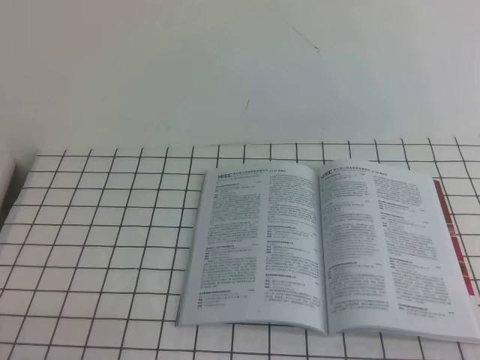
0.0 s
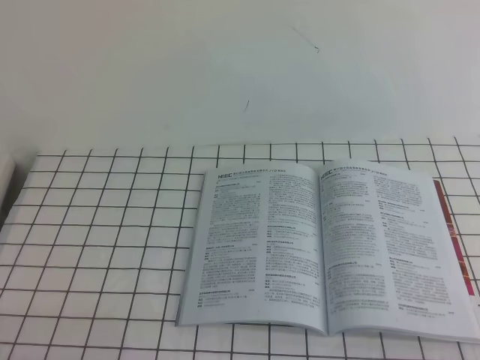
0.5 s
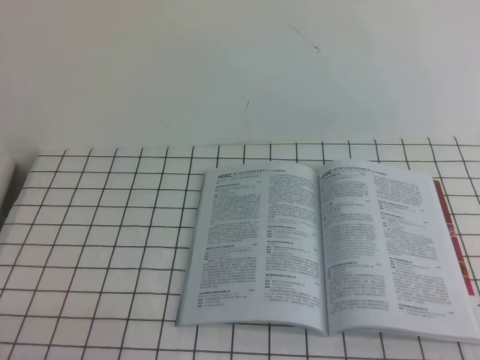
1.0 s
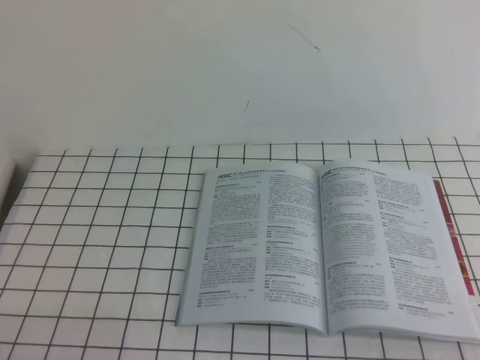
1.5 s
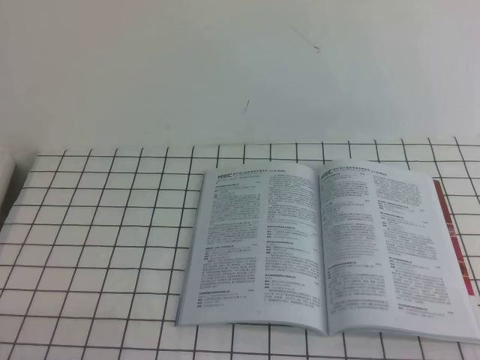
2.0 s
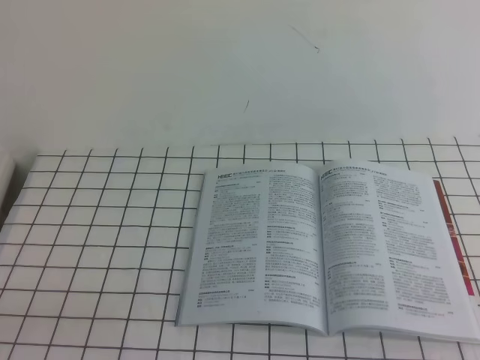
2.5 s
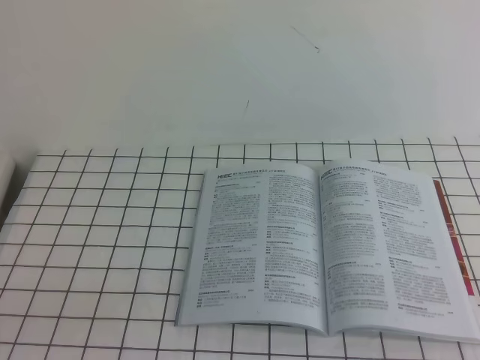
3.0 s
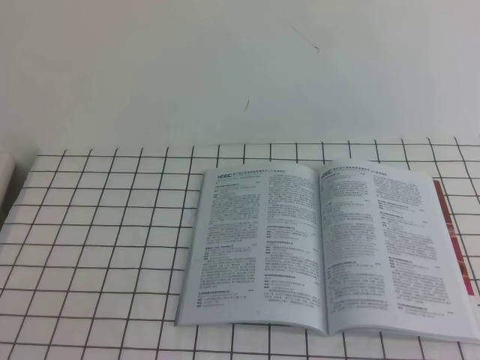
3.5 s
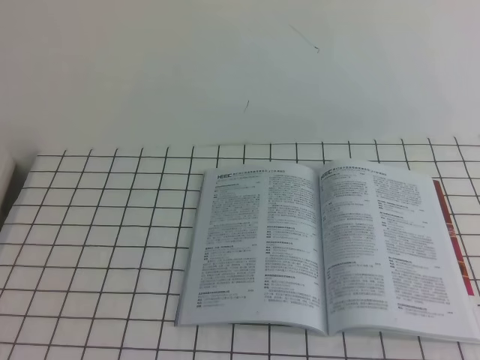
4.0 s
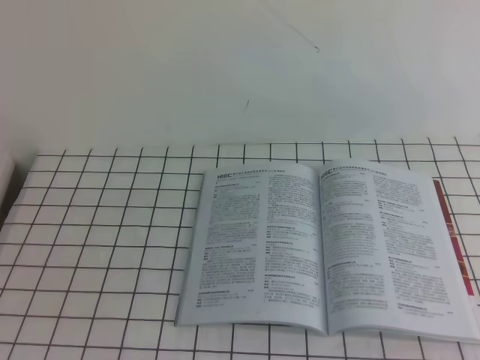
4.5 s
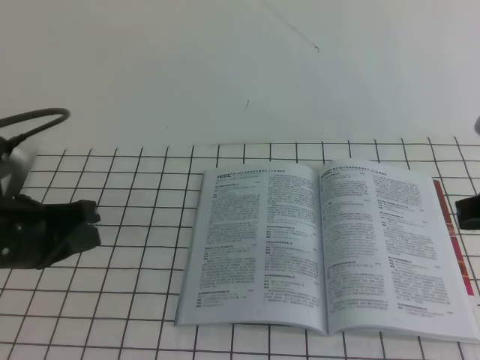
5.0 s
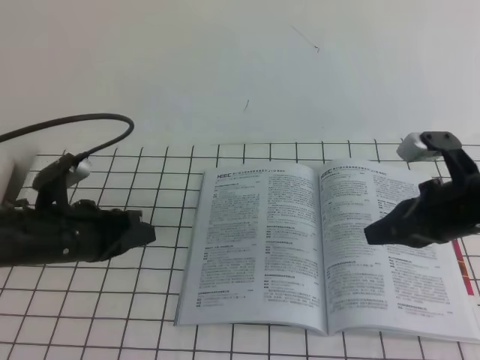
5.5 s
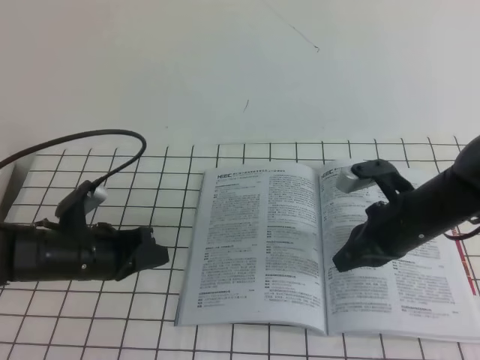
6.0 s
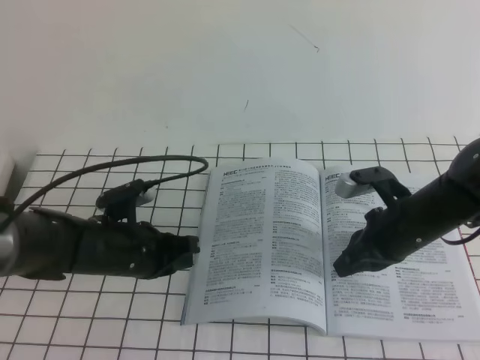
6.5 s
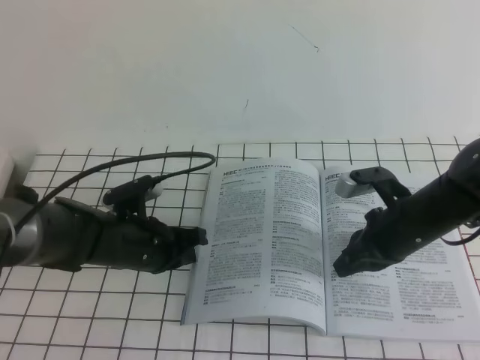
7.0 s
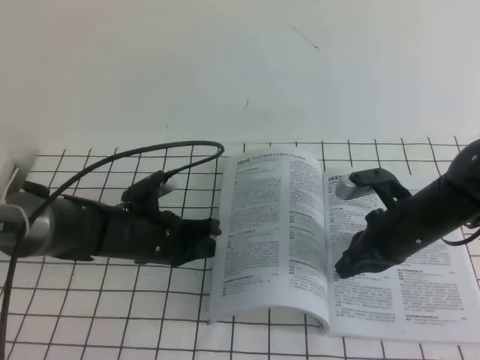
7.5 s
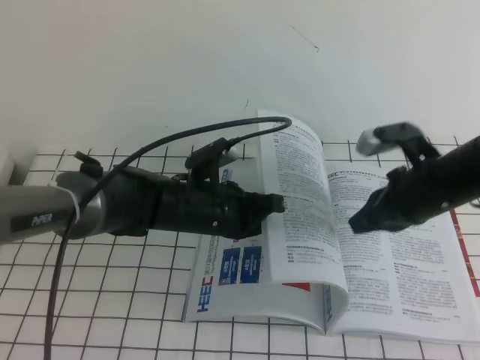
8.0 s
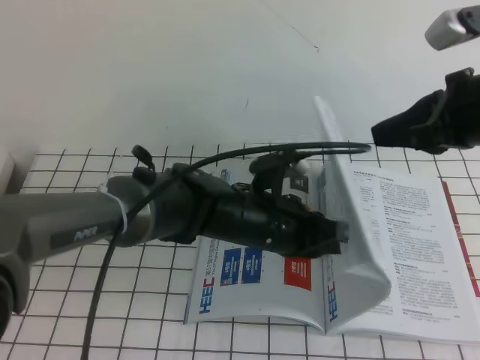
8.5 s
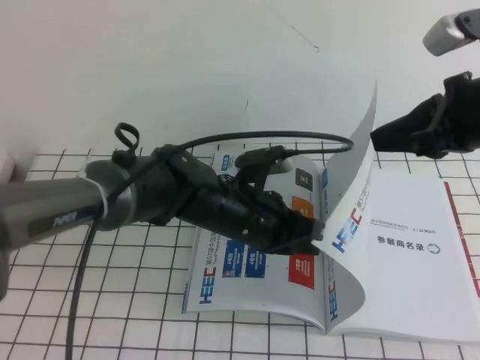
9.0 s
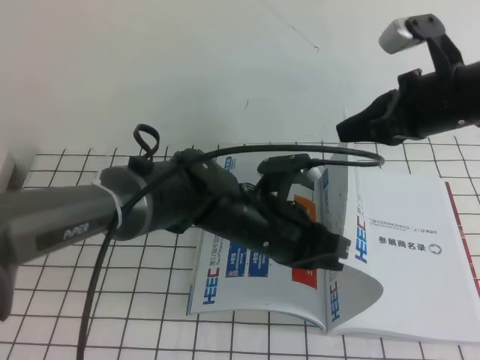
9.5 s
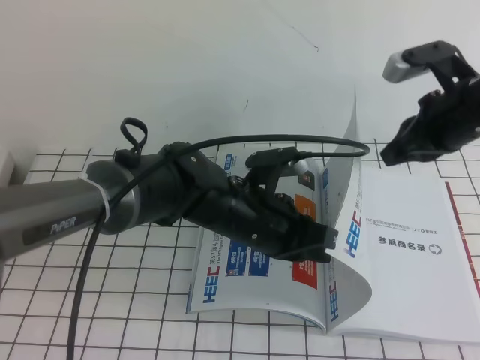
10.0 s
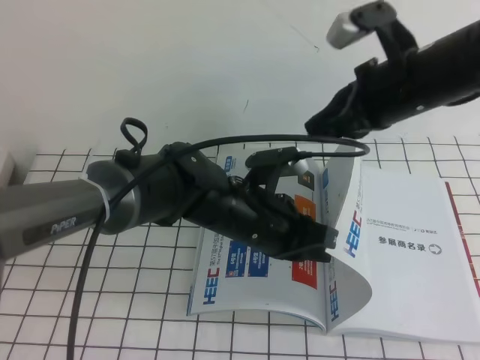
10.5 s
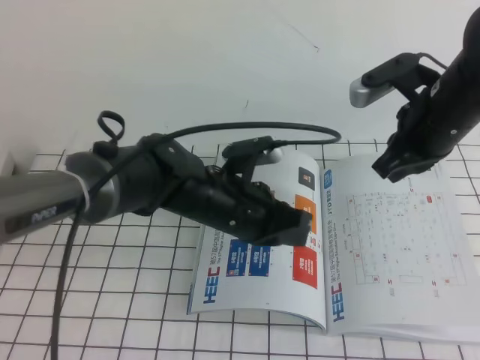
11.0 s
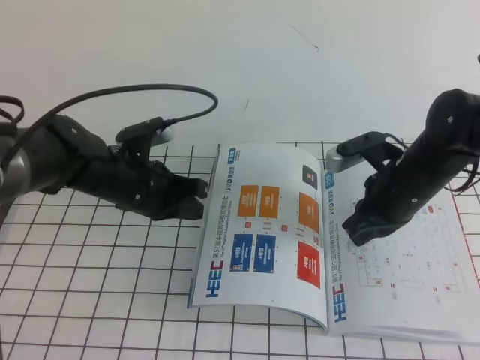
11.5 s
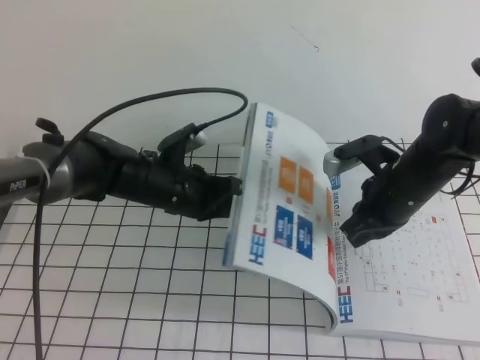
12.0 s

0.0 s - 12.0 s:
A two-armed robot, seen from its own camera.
Task of the whole recording: on the white tablecloth, hold the book with one hand and close it with the other.
0.0 s - 2.0 s: Both grippers stay about where they are.
4.0 s - 6.0 s: The right gripper moves downward, forward and to the left, approximately 40 cm, while the left gripper heads forward and downward, covering roughly 40 cm.
6.0 s - 8.0 s: The left gripper shifts some 15 cm to the right.
8.0 s - 10.0 s: The right gripper heads upward, covering approximately 10 cm, while the left gripper is displaced to the right by about 5 cm.
10.0 s - 12.0 s: The left gripper is displaced to the left and forward by about 15 cm. Meanwhile the right gripper moves downward, some 10 cm.

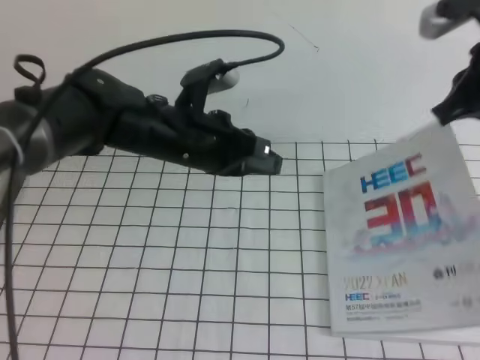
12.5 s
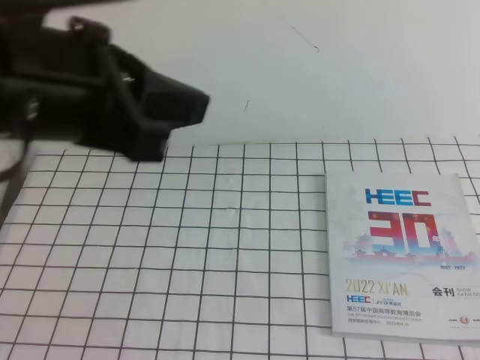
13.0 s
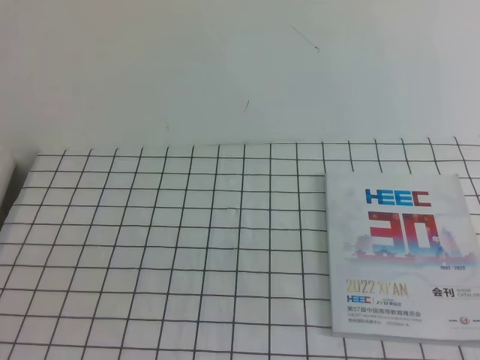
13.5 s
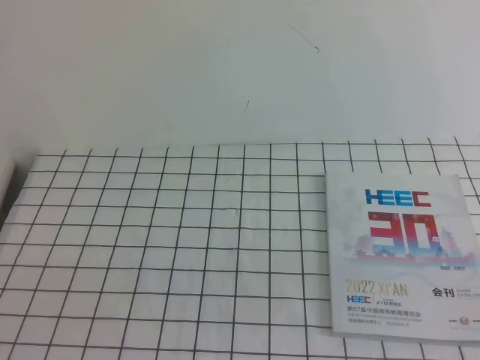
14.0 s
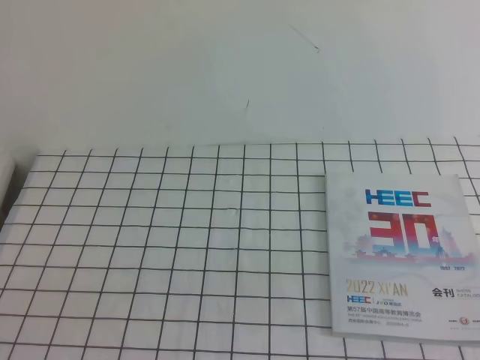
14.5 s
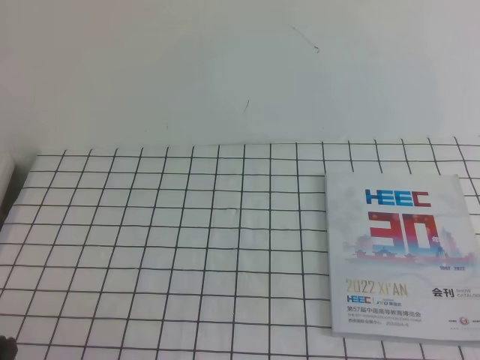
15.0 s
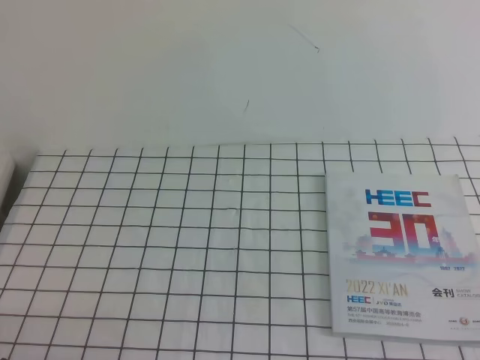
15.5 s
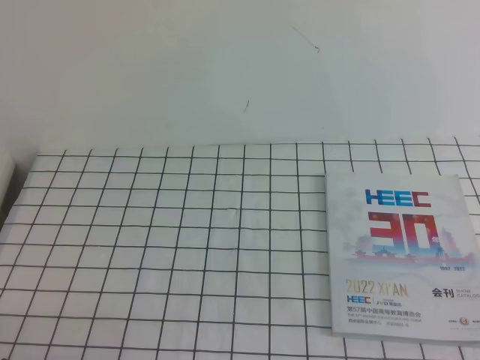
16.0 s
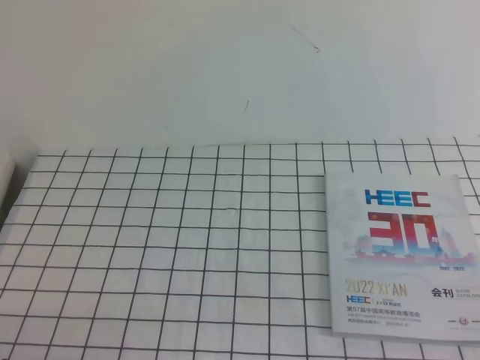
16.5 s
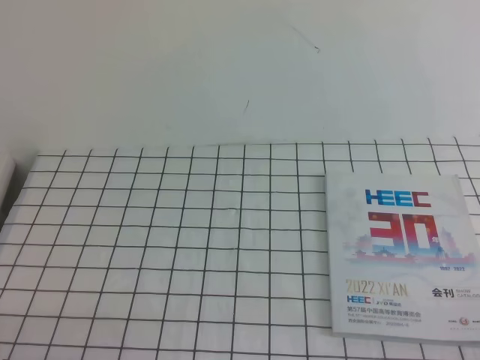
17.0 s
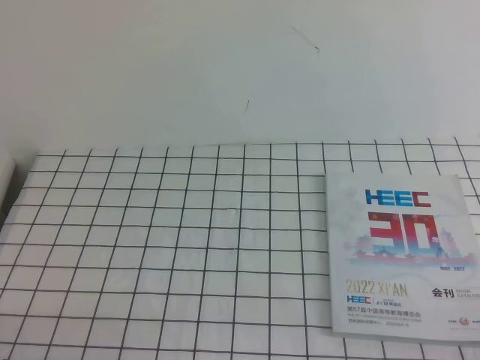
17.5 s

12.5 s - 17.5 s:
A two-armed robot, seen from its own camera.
Task of the whole recording: on the white tablecloth, hold the book with one hand and close it with the other.
Step, 12.5 s - 17.5 s: Close the open book.
12.5 s - 15.0 s: The left gripper shifts approximately 35 cm backward and to the left, while the right gripper travels backward by approximately 30 cm.

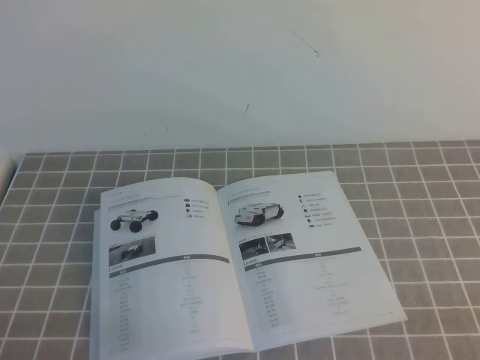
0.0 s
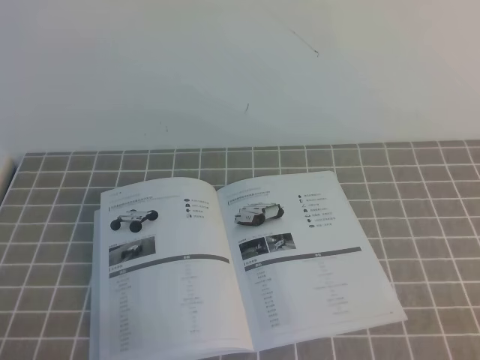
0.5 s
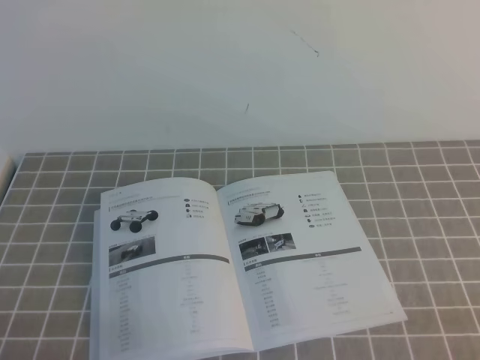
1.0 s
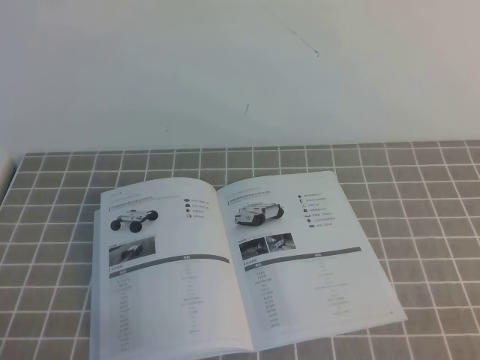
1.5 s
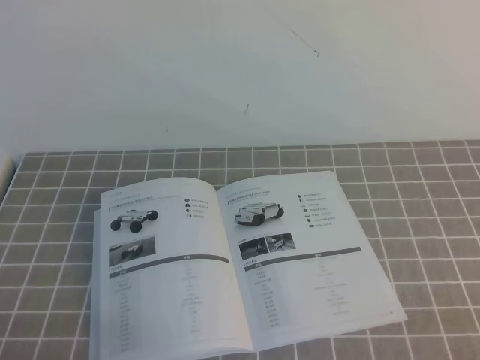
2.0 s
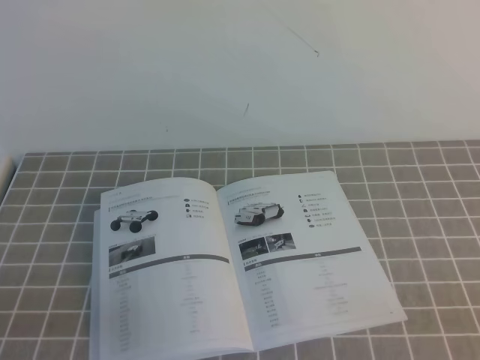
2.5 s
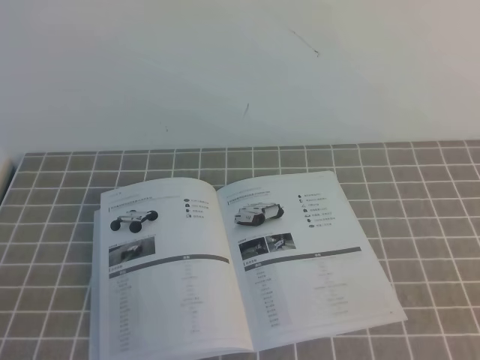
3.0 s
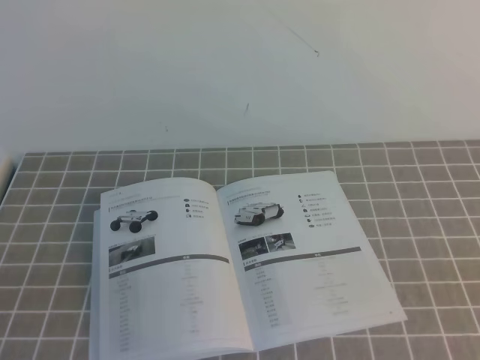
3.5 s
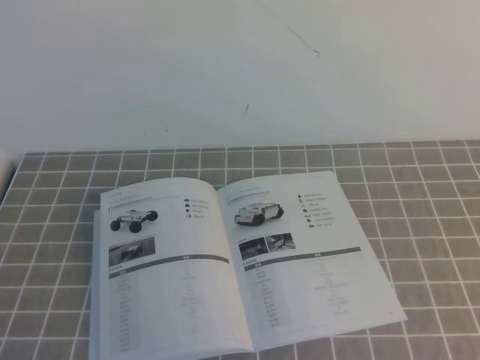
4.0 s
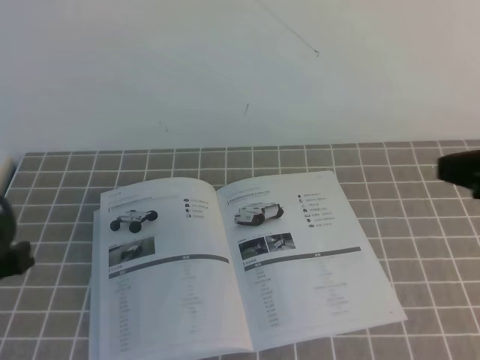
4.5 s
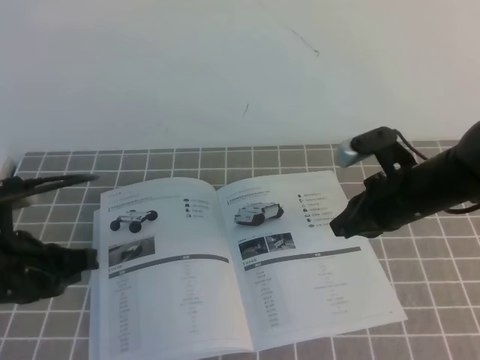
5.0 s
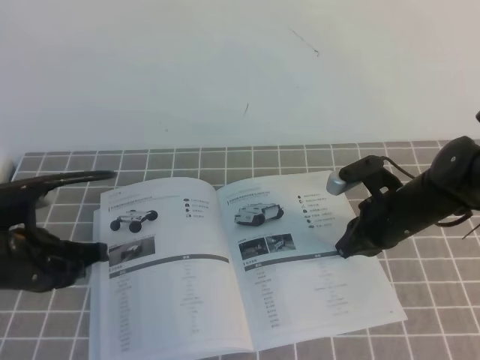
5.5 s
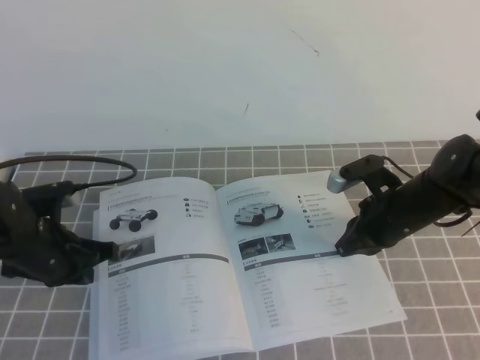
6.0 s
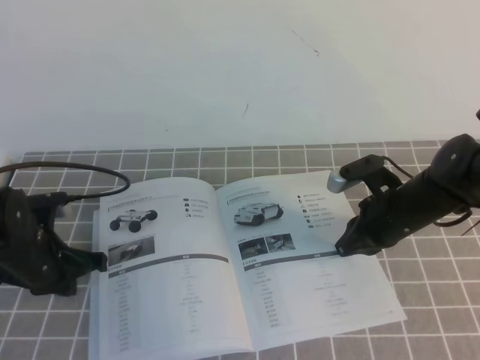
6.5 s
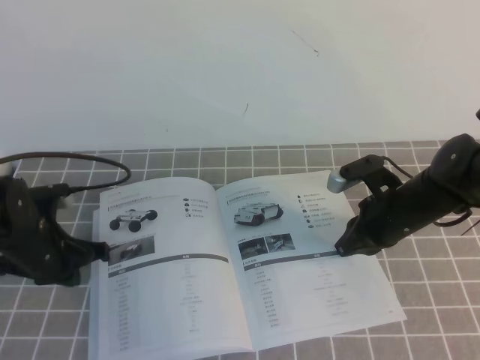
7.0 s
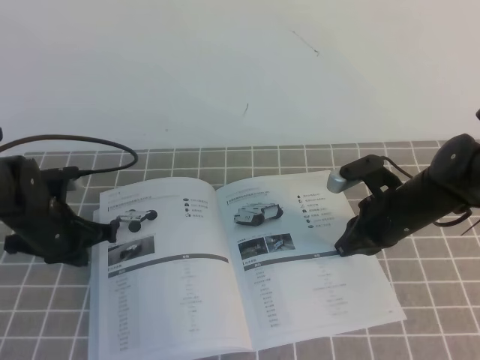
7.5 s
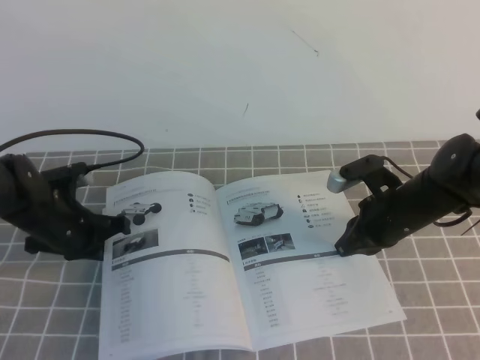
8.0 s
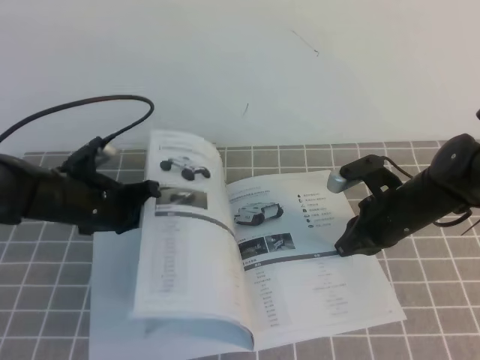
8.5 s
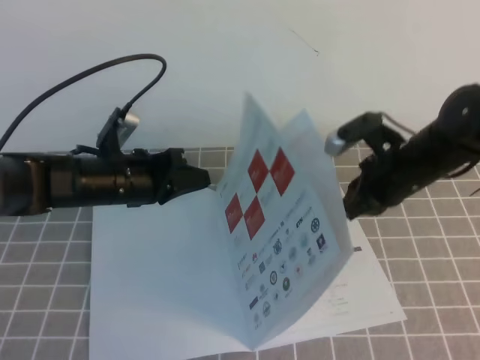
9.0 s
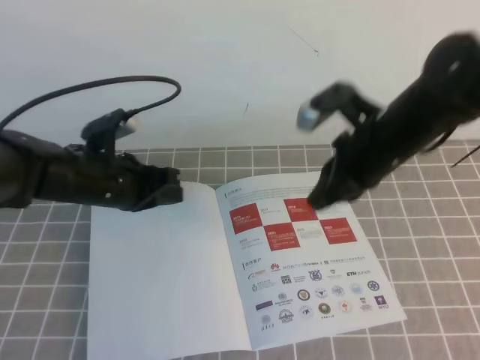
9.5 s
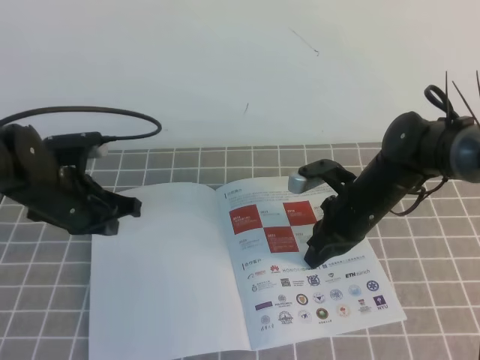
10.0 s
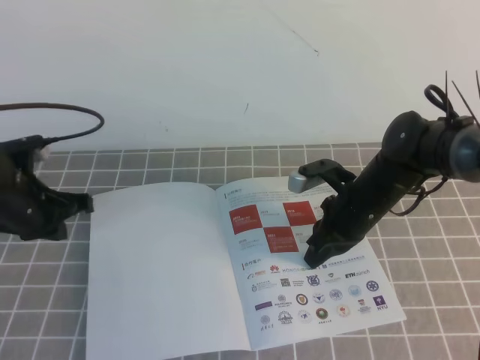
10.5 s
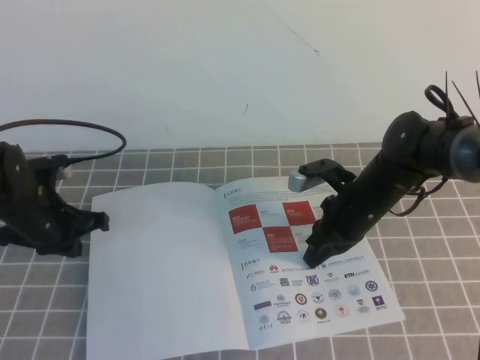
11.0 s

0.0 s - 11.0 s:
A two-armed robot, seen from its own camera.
Task of the whole recording: on the grey tablecloth, hold the book with one hand and close it with the other.
0.0 s - 2.0 s: Neither gripper changes place.
3.5 s - 5.5 s: The right gripper moves forward, to the left and downward, about 40 cm; the left gripper shifts about 25 cm forward.
5.5 s - 7.5 s: The left gripper travels forward by some 10 cm.
7.5 s - 9.0 s: The left gripper travels to the right by approximately 10 cm. Meanwhile the right gripper shifts some 5 cm upward.
9.0 s - 11.0 s: The left gripper is displaced to the left by roughly 10 cm. The right gripper moves downward, about 5 cm.
